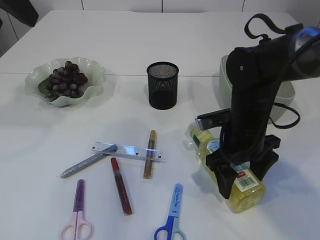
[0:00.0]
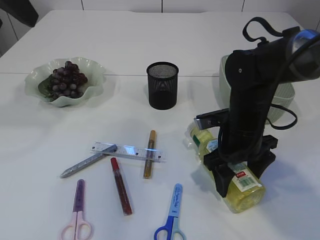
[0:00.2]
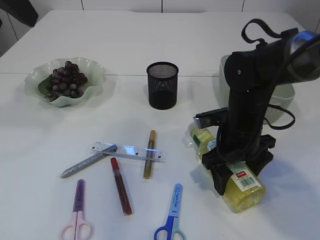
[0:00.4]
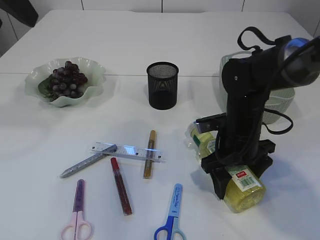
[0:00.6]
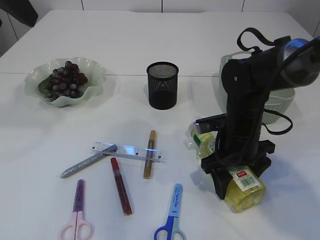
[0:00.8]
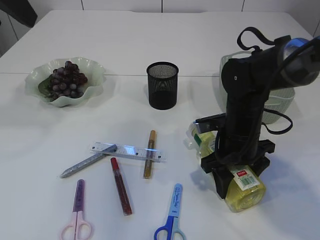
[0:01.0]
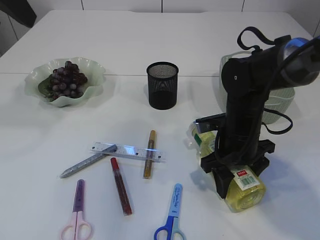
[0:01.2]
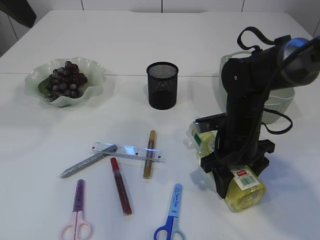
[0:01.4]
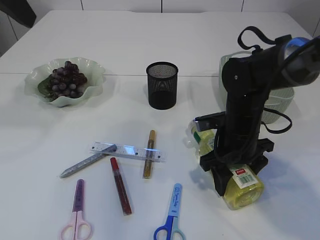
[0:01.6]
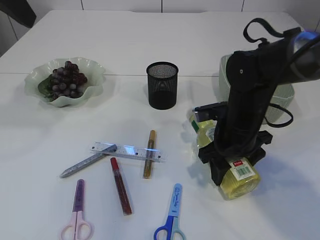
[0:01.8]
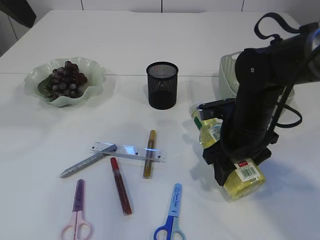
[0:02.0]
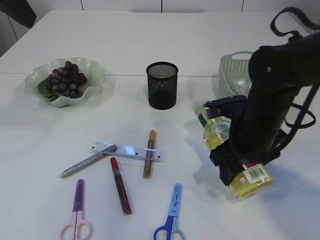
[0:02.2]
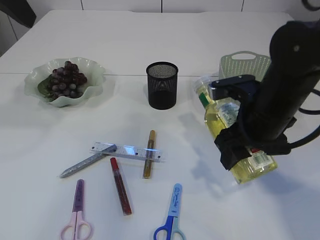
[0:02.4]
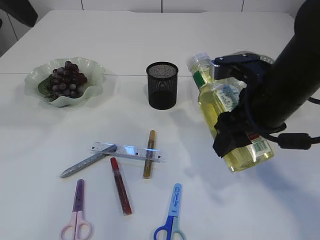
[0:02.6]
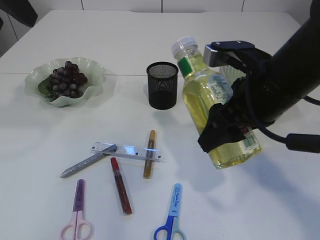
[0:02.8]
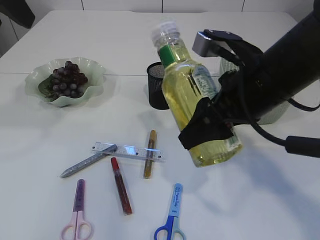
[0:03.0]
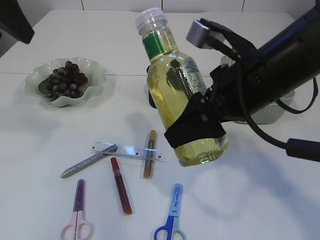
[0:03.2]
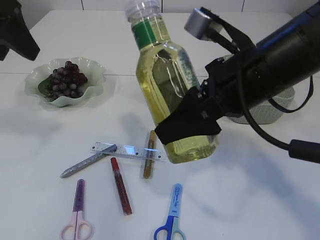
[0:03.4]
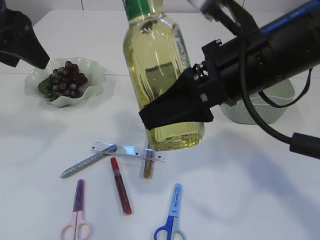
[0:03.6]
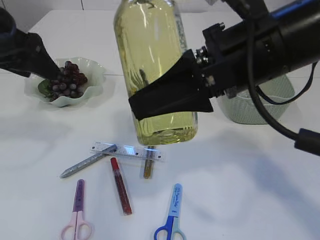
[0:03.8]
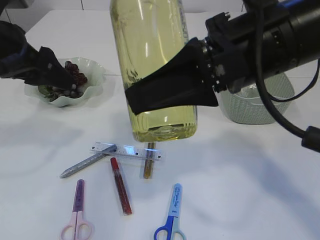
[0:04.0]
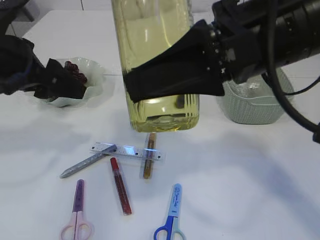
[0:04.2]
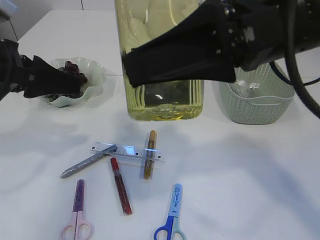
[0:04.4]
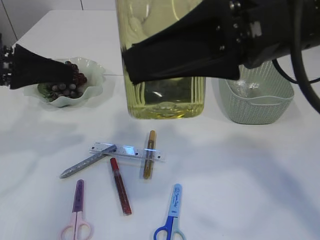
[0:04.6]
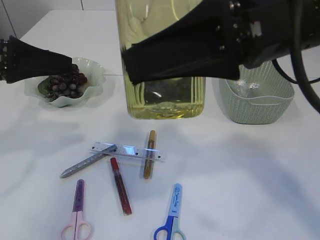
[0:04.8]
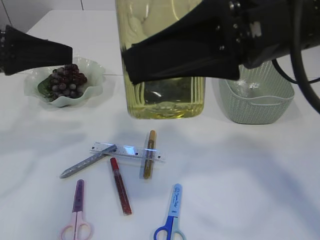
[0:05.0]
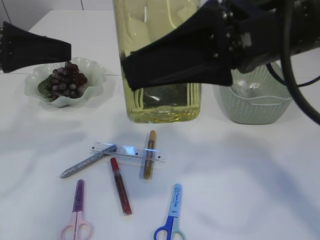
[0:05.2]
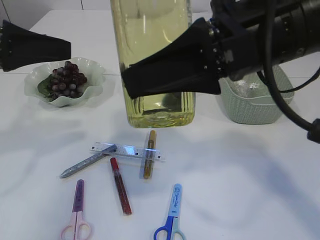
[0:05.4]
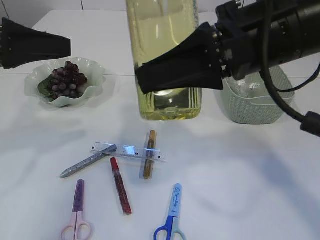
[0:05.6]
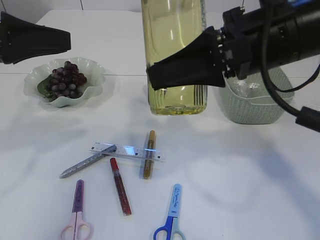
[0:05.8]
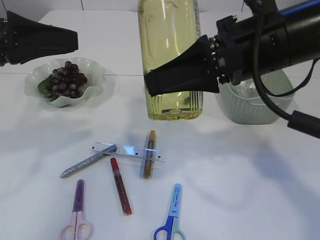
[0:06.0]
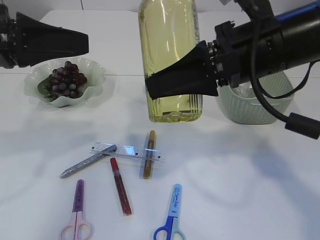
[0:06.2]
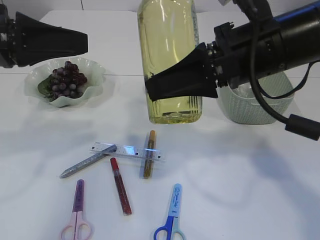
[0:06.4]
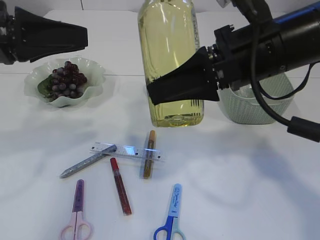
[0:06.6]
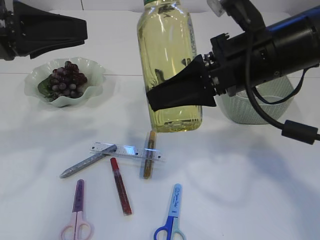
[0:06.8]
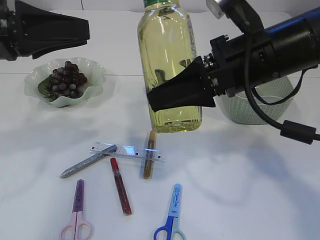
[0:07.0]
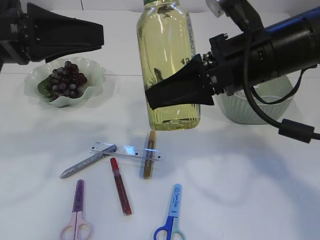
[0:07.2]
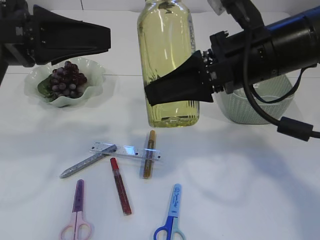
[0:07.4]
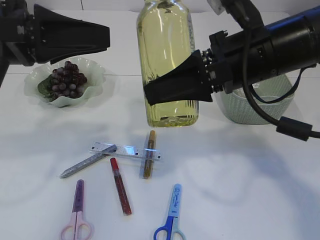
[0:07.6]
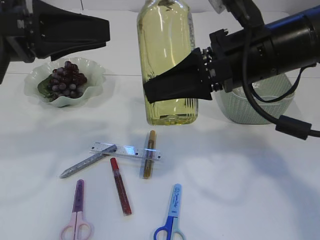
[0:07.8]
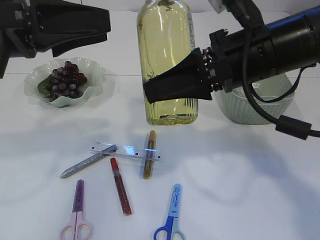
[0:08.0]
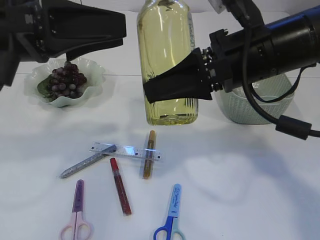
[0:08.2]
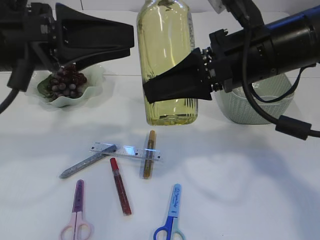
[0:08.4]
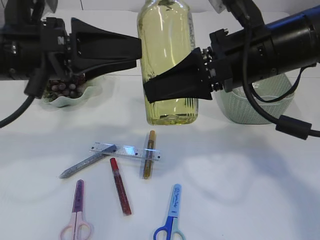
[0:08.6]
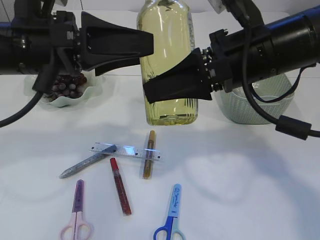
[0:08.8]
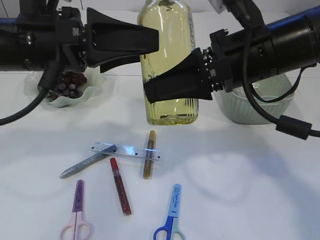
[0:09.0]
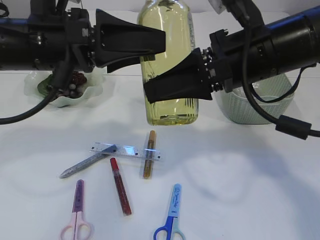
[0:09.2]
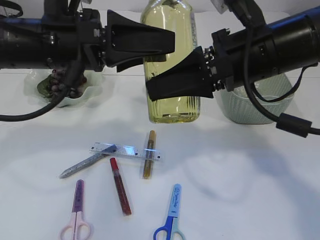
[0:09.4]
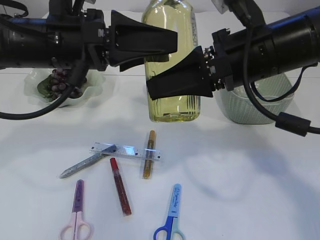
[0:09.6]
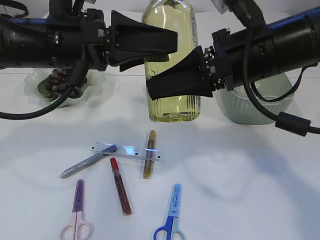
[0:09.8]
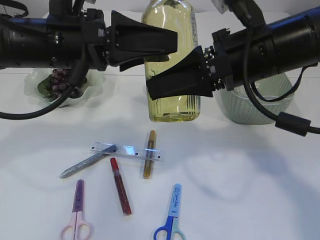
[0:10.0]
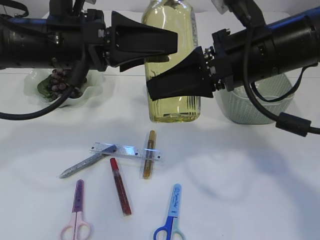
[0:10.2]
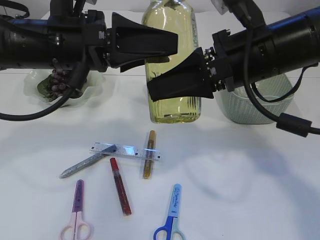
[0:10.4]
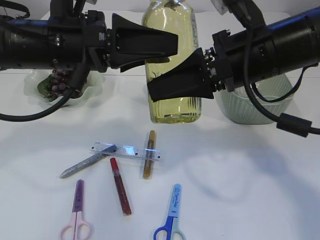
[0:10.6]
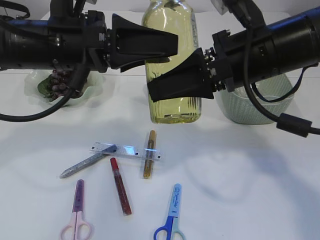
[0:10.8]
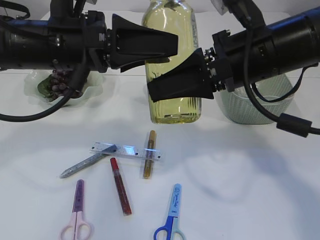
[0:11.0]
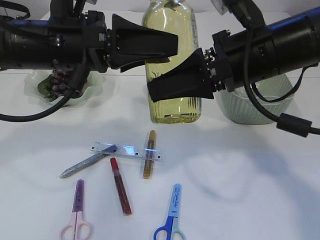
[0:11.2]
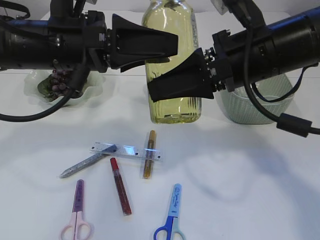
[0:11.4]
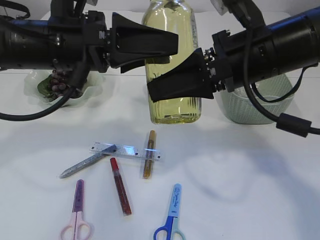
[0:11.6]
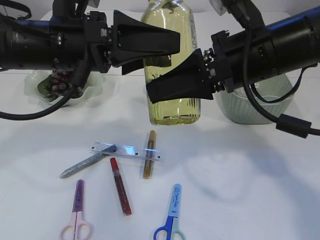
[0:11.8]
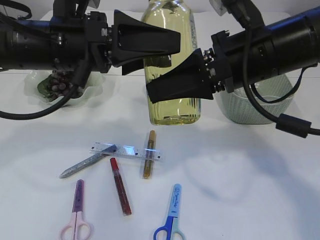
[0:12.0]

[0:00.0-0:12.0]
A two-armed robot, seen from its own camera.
Step, 0:00.0 to 0:02.6: Pick up the bottle with the right arm.
0:00.0 to 0:01.6: The grippers stay close to where they were, moving slightly.
0:01.6 to 0:03.0: The right gripper shifts roughly 15 cm upward and backward.
0:03.0 to 0:04.4: The left gripper heads downward, covering approximately 15 cm, while the right gripper moves upward, approximately 10 cm.
0:04.4 to 0:06.0: The right gripper shifts approximately 5 cm forward.
0:06.0 to 0:07.6: The grippers make only small movements.
0:07.6 to 0:09.0: The left gripper goes about 5 cm to the right.
0:09.0 to 0:10.4: The grippers stay close to where they were, moving slightly.
0:10.4 to 0:12.0: The two grippers keep their place.

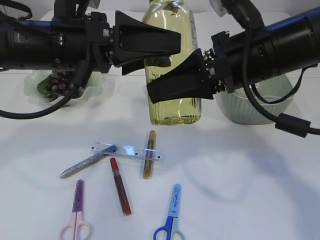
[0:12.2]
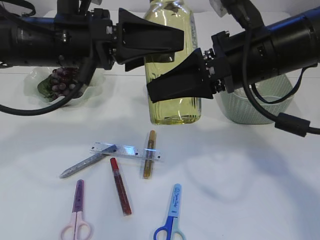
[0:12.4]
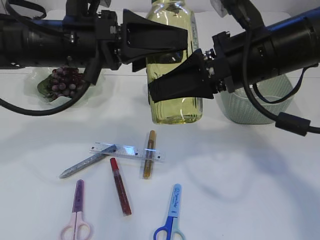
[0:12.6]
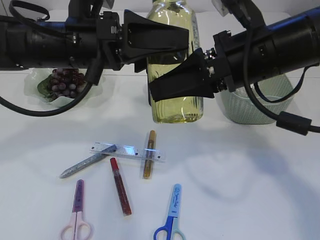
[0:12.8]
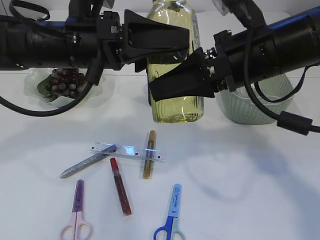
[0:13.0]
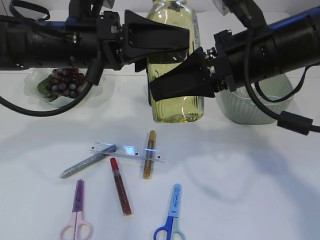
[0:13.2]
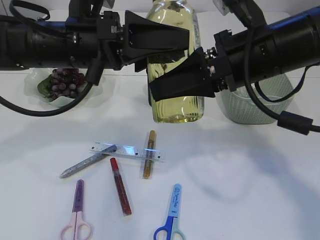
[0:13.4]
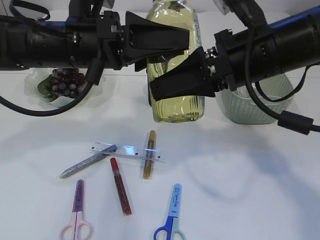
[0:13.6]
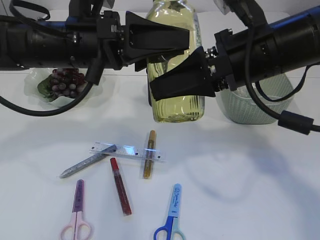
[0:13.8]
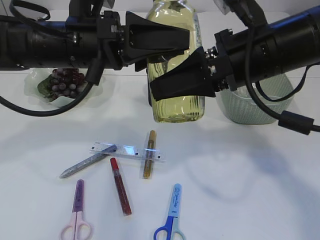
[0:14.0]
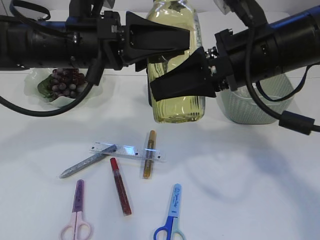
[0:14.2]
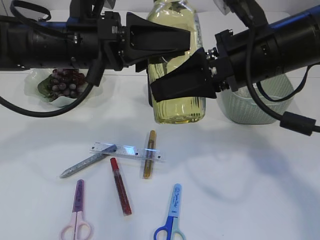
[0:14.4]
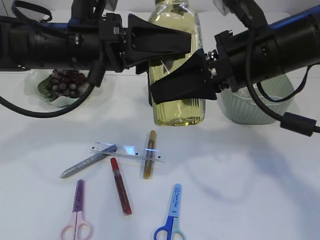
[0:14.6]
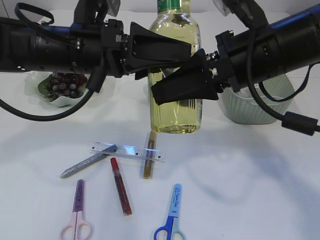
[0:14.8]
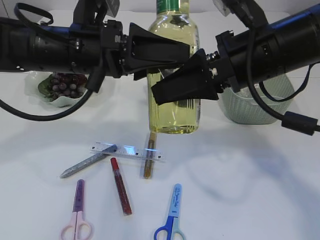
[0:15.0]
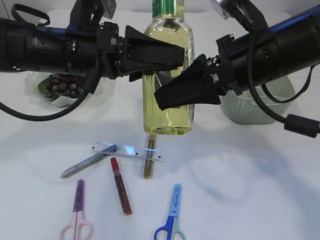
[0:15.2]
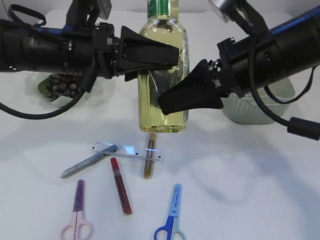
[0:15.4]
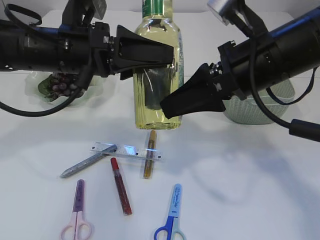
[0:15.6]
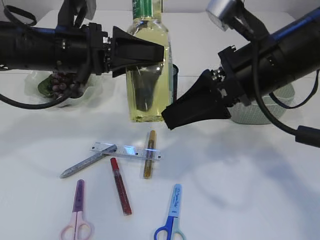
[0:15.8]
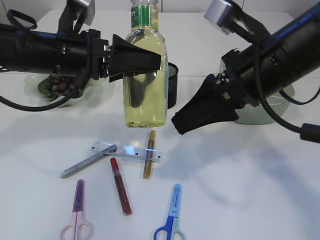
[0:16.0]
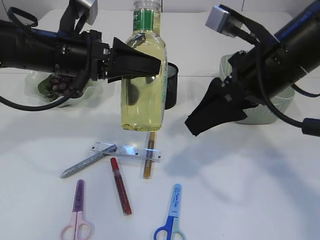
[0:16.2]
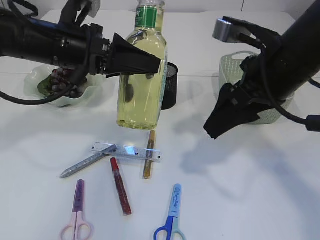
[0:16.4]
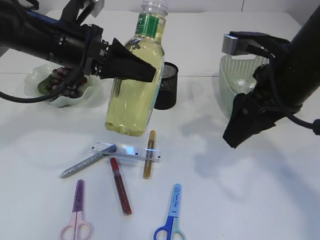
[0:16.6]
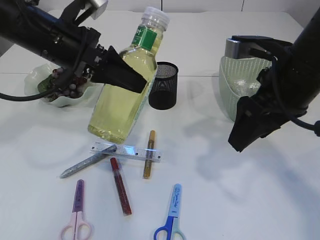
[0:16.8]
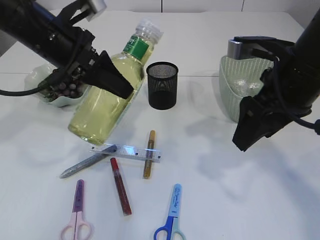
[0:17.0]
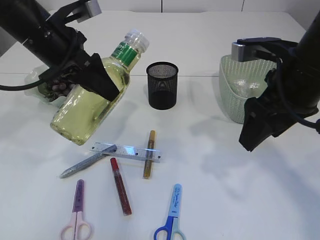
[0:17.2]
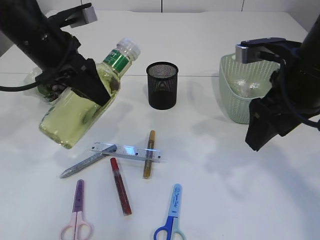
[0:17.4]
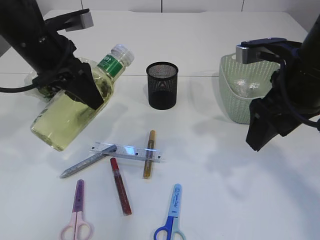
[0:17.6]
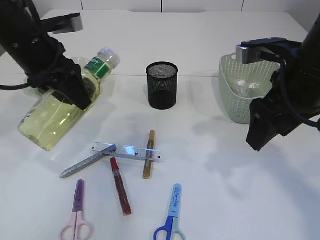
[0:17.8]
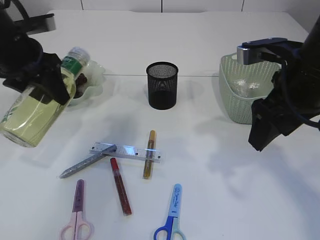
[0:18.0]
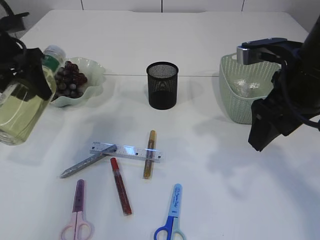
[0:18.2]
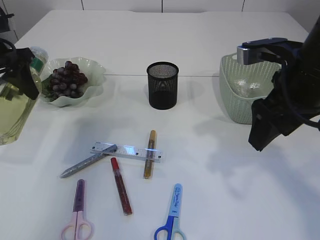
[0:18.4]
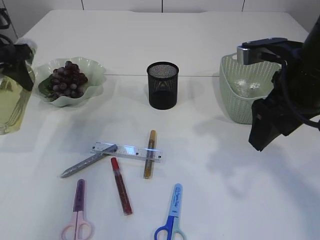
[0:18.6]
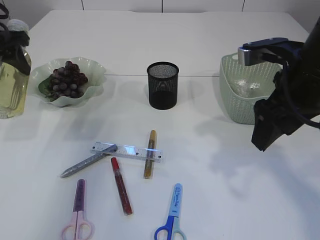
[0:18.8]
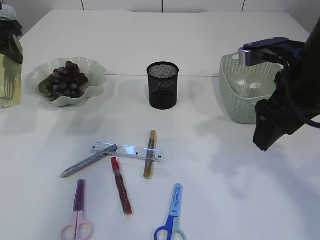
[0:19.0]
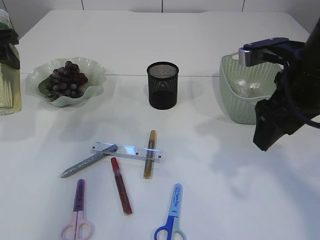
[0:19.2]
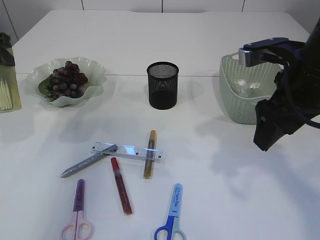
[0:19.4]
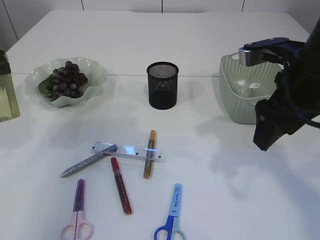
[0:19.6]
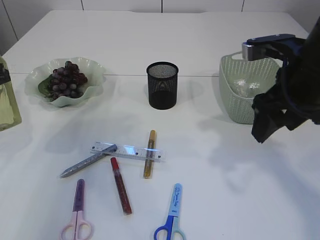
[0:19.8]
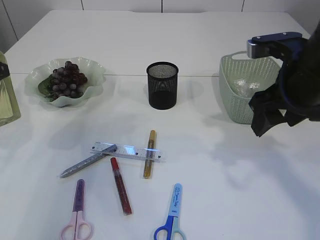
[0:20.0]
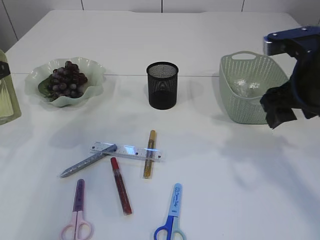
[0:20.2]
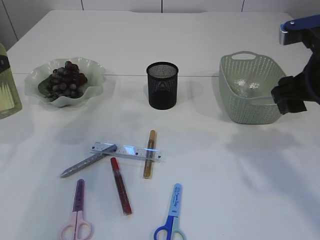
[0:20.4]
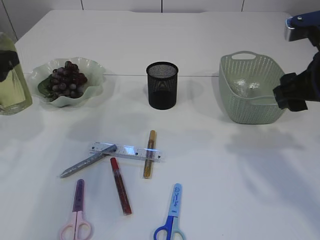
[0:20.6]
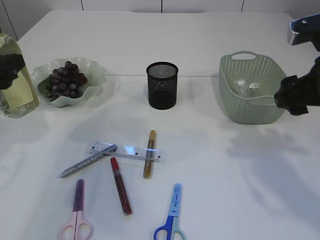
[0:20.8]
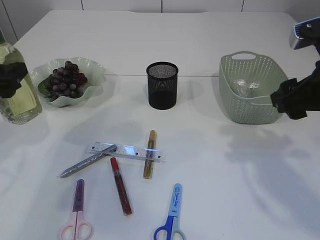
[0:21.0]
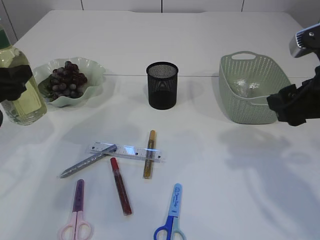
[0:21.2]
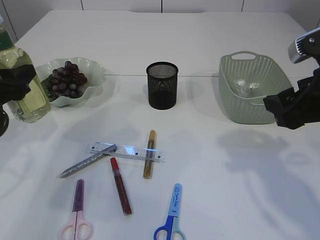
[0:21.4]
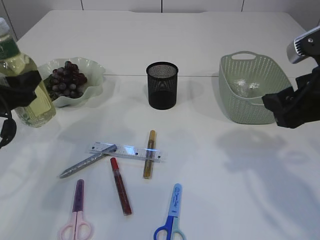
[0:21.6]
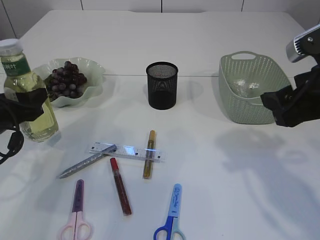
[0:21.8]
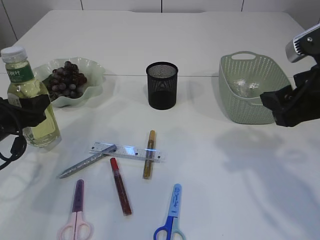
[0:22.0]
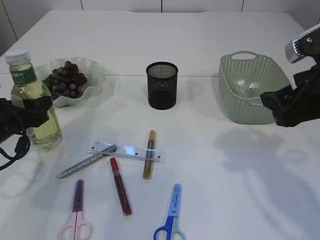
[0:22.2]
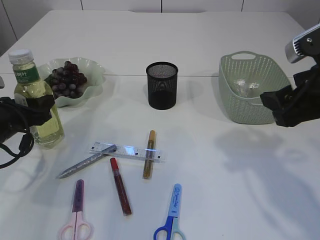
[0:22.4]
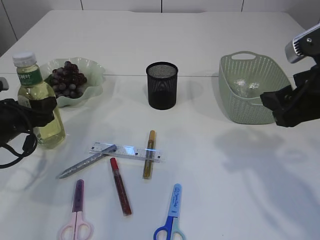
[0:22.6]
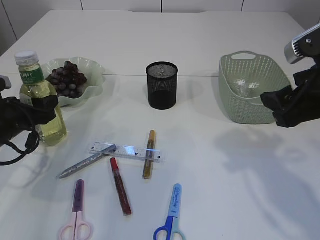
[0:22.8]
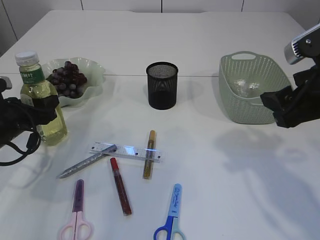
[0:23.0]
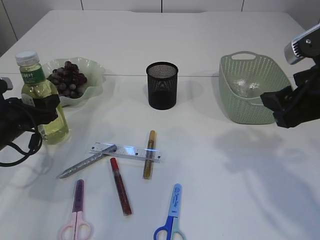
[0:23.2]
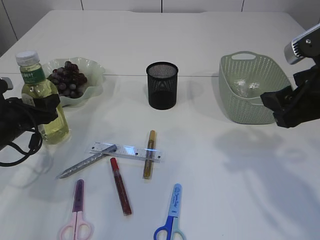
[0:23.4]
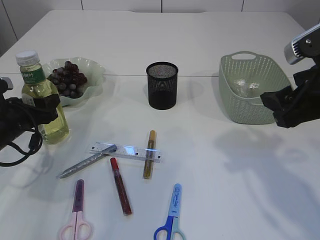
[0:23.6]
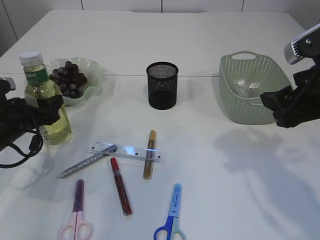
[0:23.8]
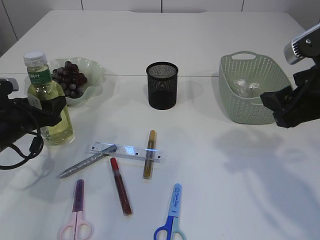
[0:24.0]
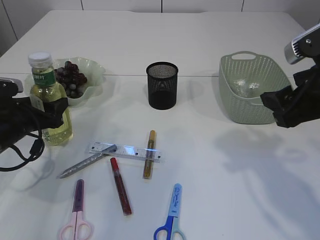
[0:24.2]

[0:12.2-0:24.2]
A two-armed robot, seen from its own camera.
Step, 0:12.2 to 0:16.2: transfer the bottle to the left arm.
0:12.2 to 0:13.8: The grippers move only a little.
0:13.8 to 0:15.2: Both grippers stay put.
0:16.6 to 0:18.2: The left gripper moves to the left, some 15 cm.
0:18.2 to 0:19.8: The left gripper is displaced backward by approximately 10 cm.
0:19.8 to 0:21.2: The right gripper ends up about 5 cm from where it was.
0:21.2 to 0:22.6: The left gripper shifts some 10 cm downward.
0:22.6 to 0:24.2: The grippers stay close to where they were, moving slightly.
